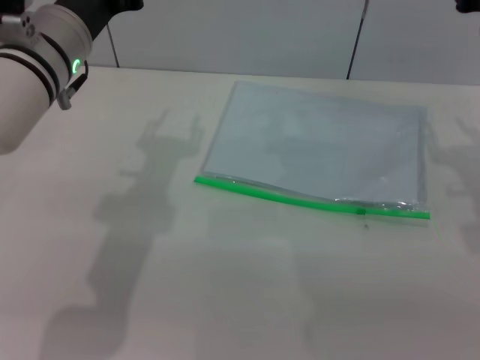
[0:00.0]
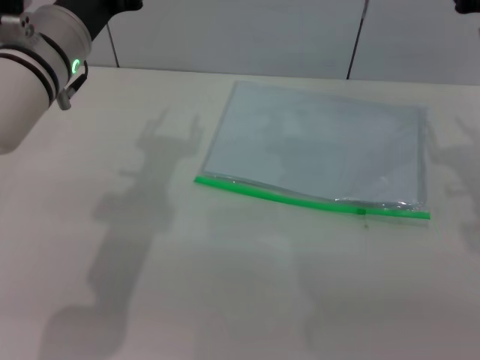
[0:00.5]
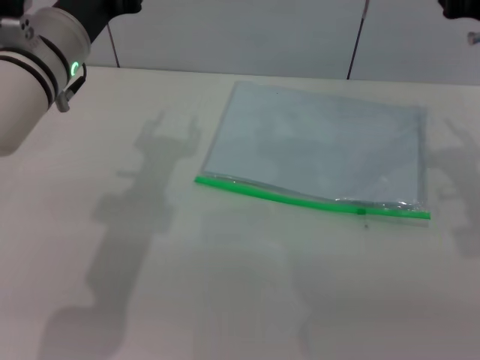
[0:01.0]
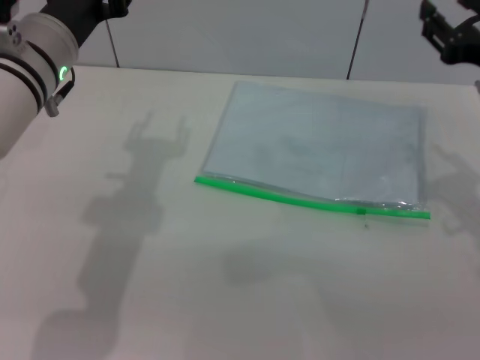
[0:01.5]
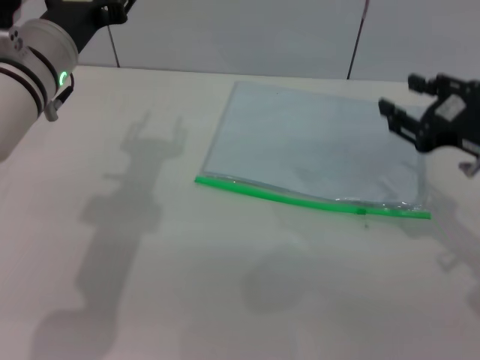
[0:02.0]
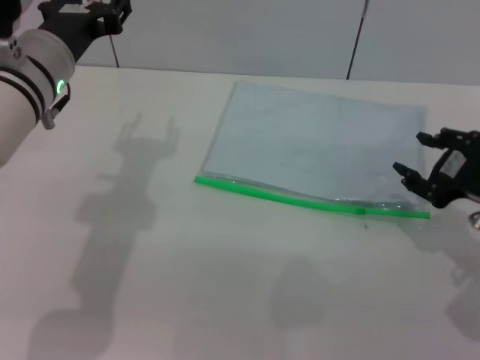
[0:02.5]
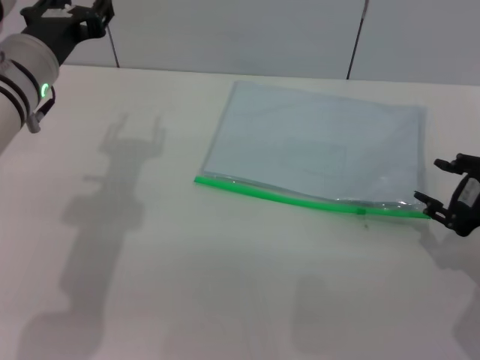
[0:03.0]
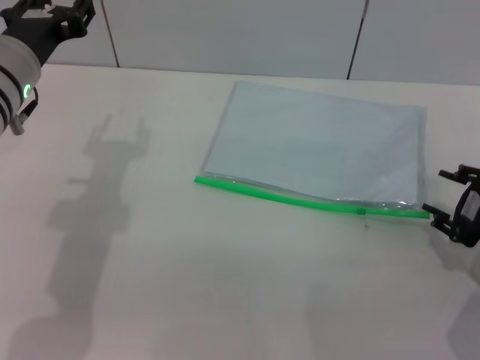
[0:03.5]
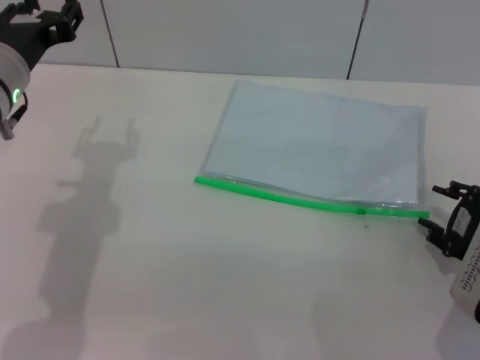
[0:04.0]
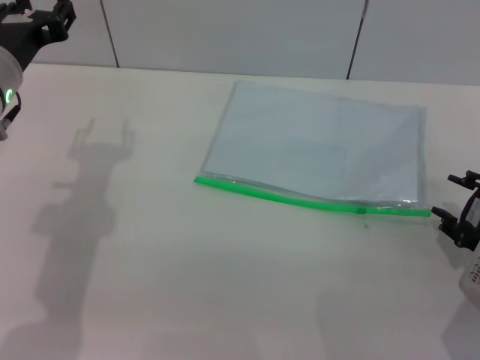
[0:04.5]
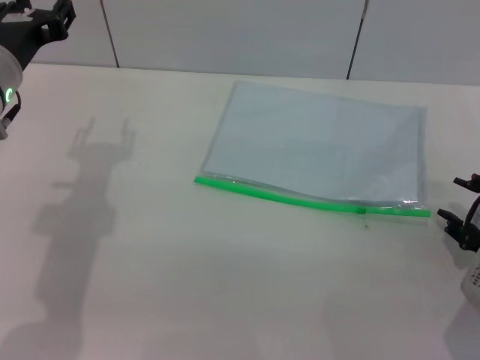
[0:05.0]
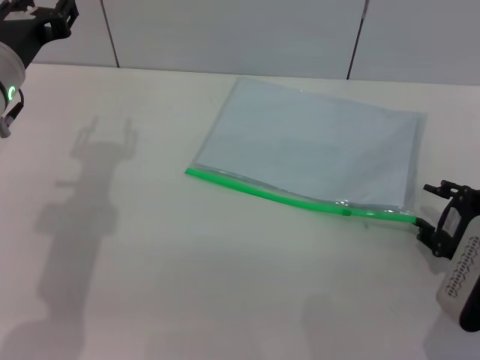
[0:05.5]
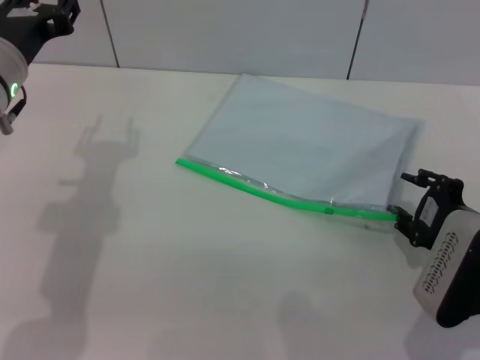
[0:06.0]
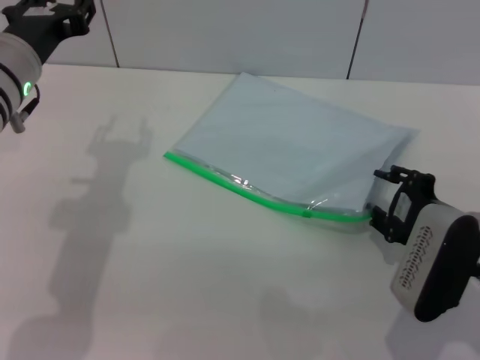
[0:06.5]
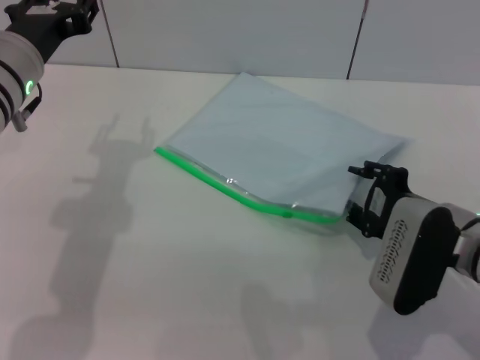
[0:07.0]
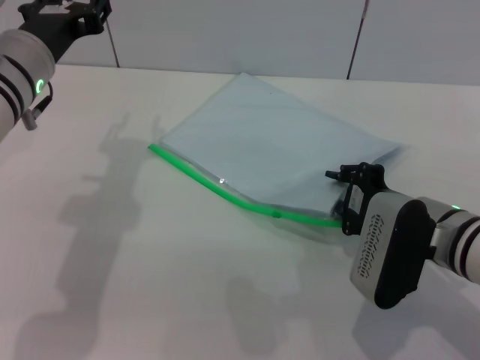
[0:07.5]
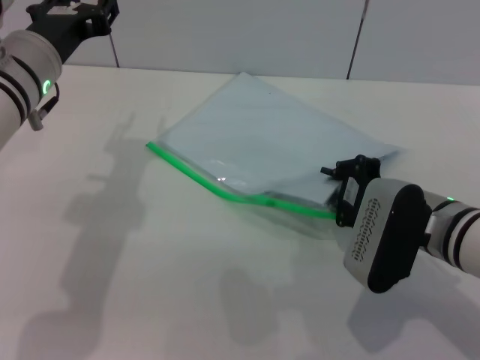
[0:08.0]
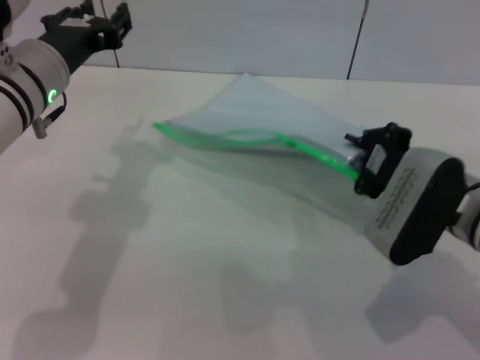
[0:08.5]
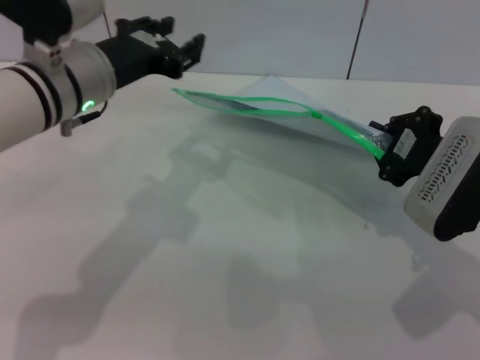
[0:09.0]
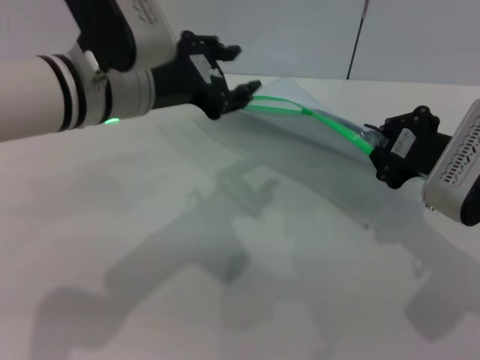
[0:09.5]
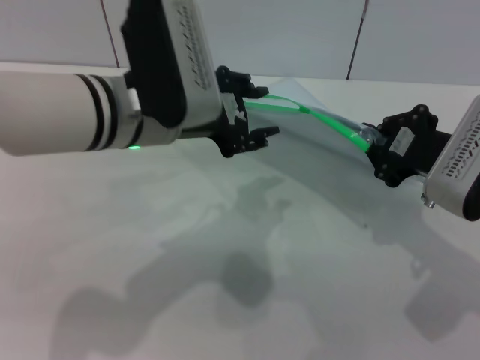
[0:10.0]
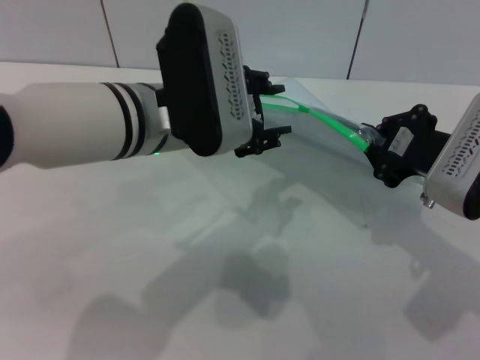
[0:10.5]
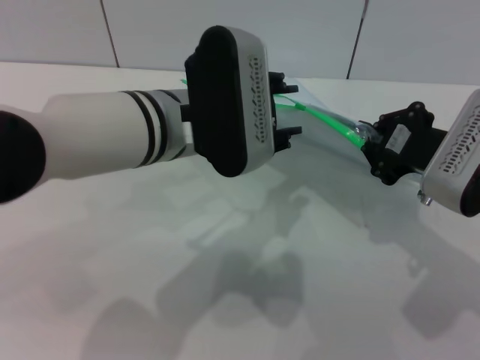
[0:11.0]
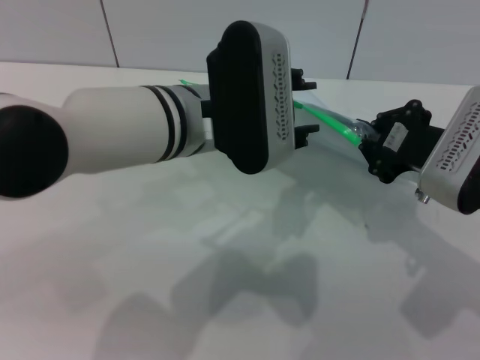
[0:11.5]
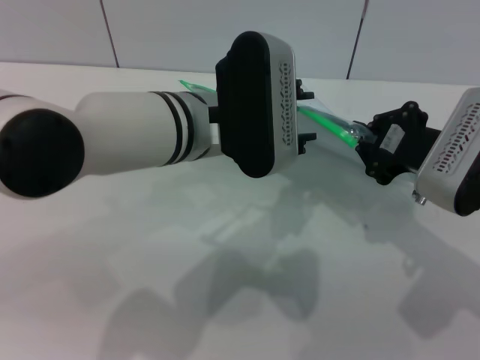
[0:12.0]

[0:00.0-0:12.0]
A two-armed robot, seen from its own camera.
Step, 0:00.0 to 0:09.5: Pick up the transparent plastic bag with the right gripper.
0:00.0 to 0:02.0: The right gripper is displaced backward by roughly 5 cm.
0:02.0 to 0:04.0: The right gripper travels downward by about 10 cm.
0:04.0 to 0:06.0: The grippers make only small movements.
0:06.0 to 0:08.0: The right gripper shifts roughly 5 cm to the left, and closes its fingers.
0:08.0 to 0:10.0: The left gripper shifts about 10 cm to the right, while the right gripper goes about 5 cm upward, and closes its fingers.
0:10.0 to 0:12.0: The left gripper shifts some 5 cm to the right.

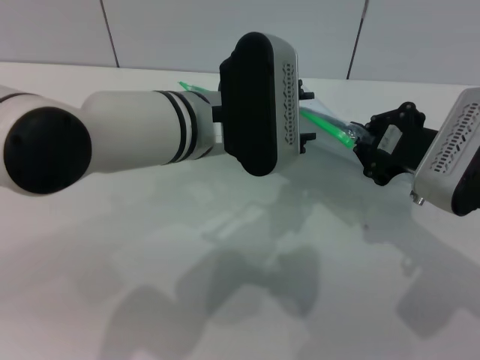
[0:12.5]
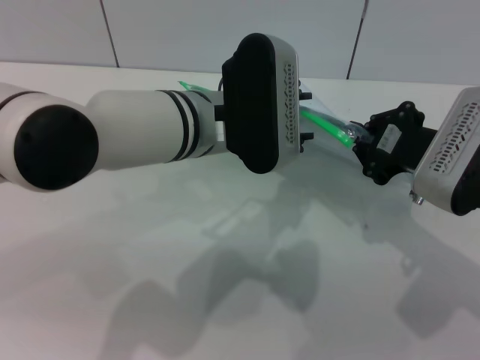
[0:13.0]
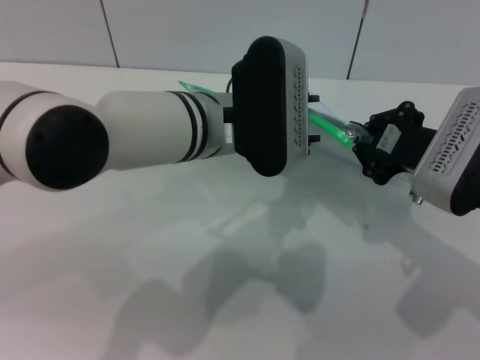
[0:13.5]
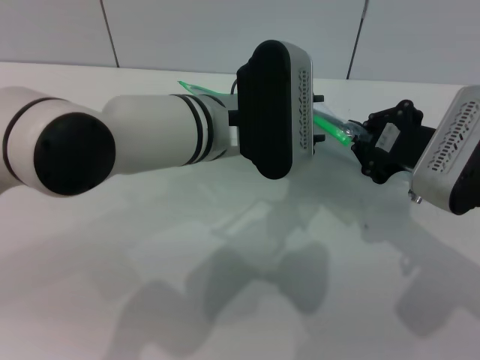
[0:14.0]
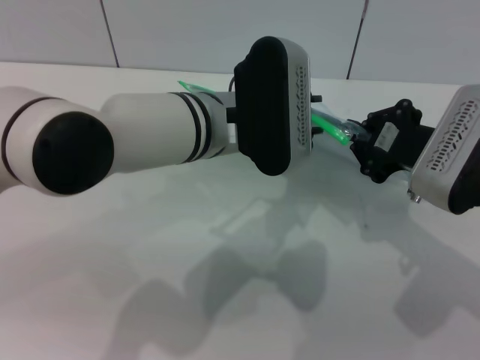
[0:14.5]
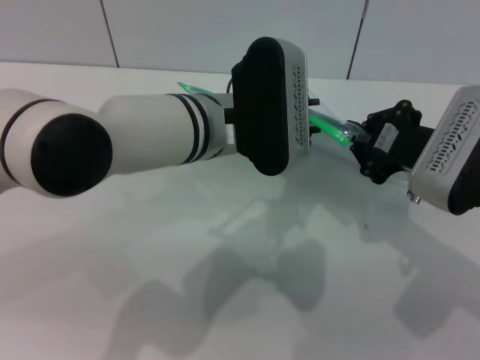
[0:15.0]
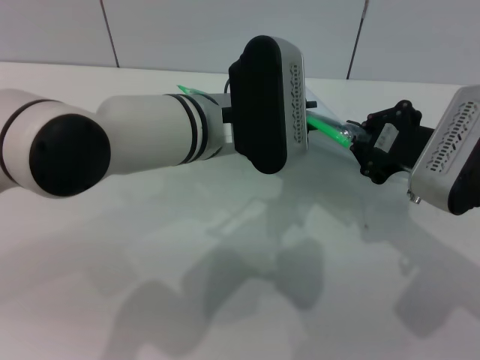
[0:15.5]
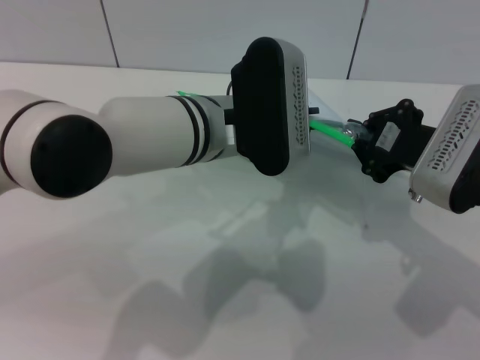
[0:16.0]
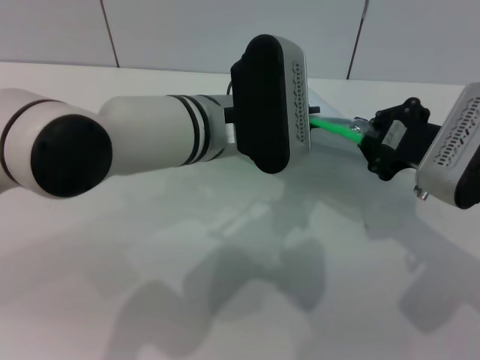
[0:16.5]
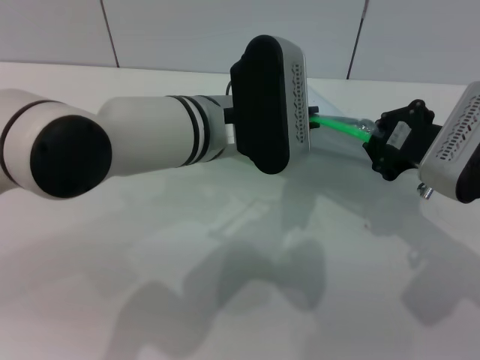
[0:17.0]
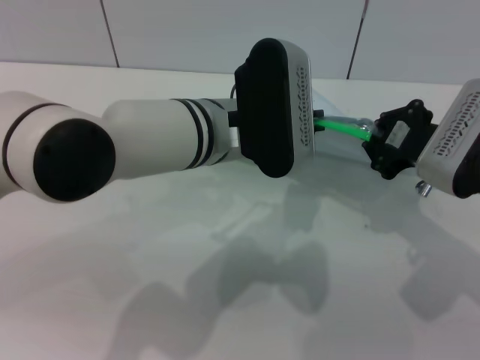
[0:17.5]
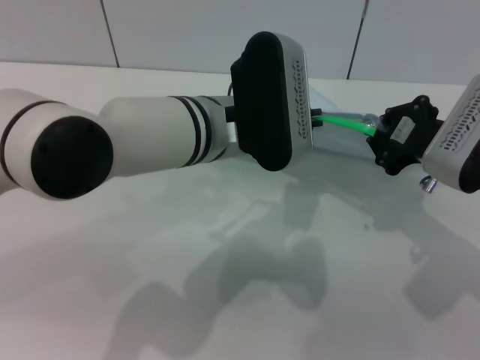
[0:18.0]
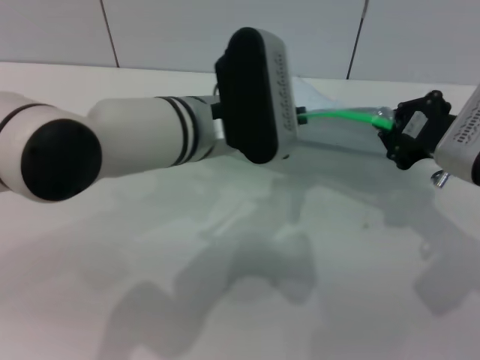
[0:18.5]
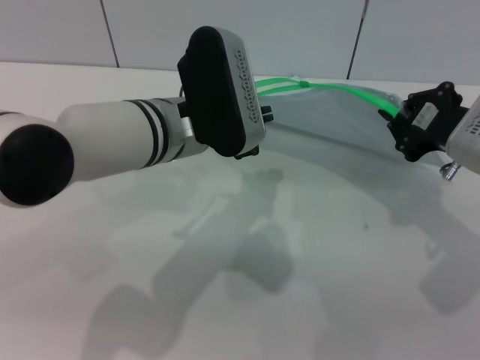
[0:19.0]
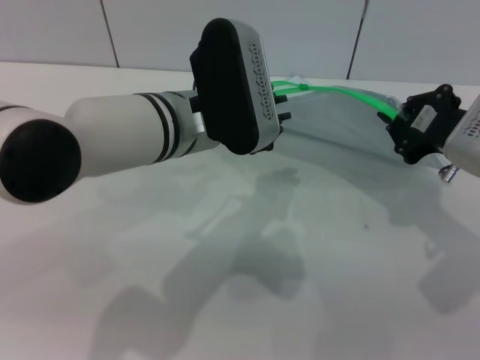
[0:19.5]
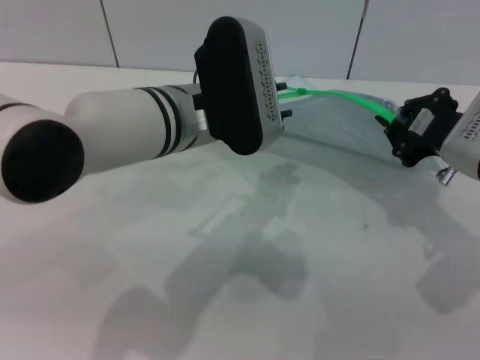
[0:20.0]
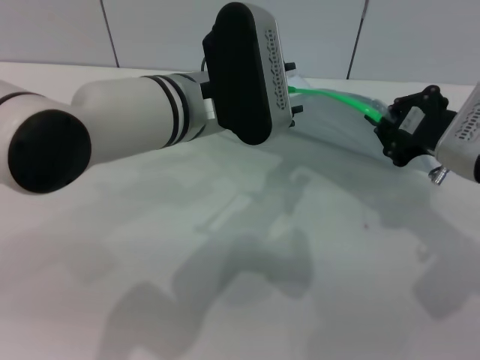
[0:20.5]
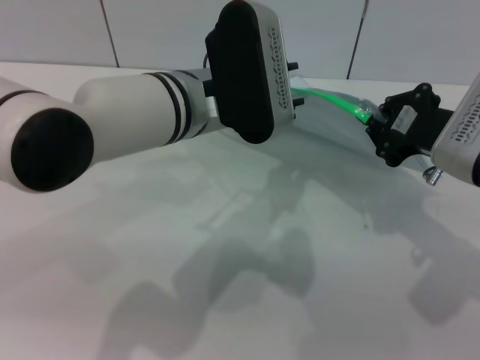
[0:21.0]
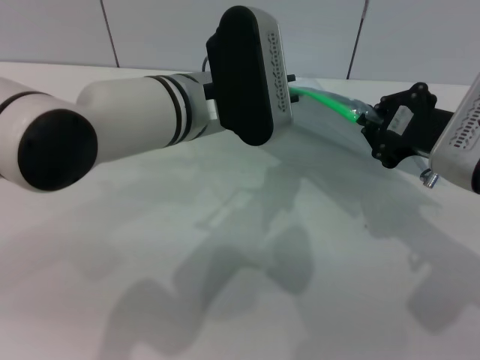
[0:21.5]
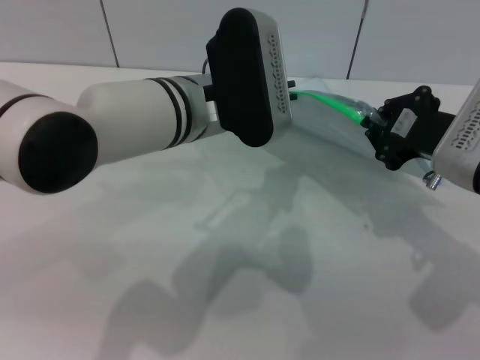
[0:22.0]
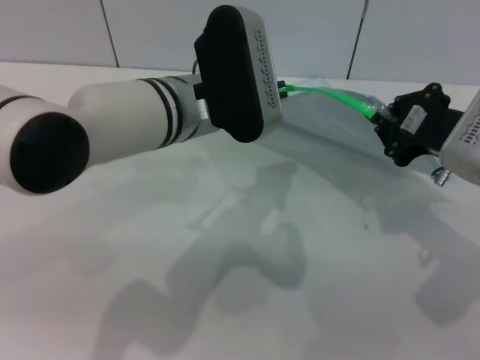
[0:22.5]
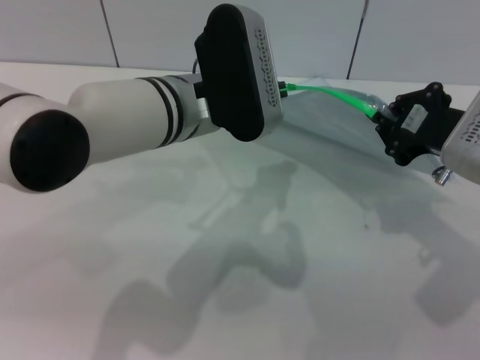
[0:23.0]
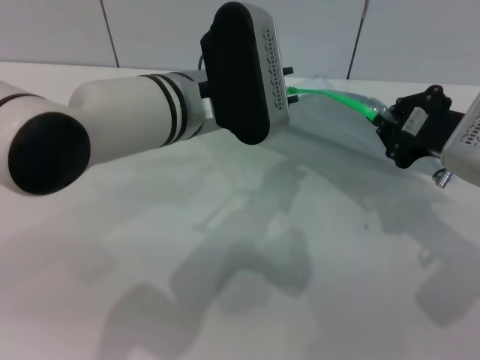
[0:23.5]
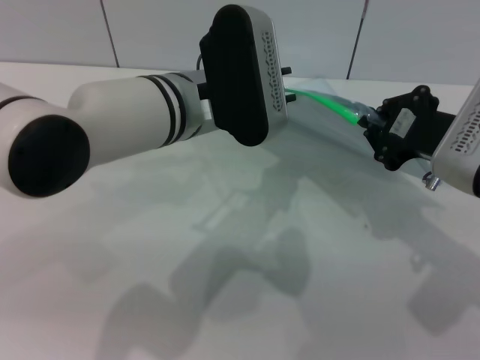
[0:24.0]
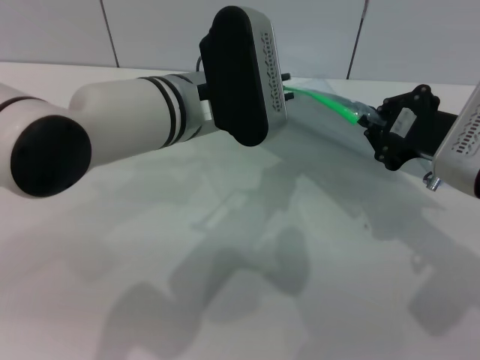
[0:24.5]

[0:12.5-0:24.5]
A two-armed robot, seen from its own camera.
0:12.5 to 0:14.5: There are only small adjustments of the grippers.
0:14.5 to 0:16.5: The left gripper closes its fingers.
0:16.5 to 0:18.5: The grippers stay close to where they were, moving slightly.
0:18.5 to 0:20.5: The left gripper opens.
0:20.5 to 0:22.5: The left gripper closes up.
0:22.5 to 0:24.5: The left gripper opens.

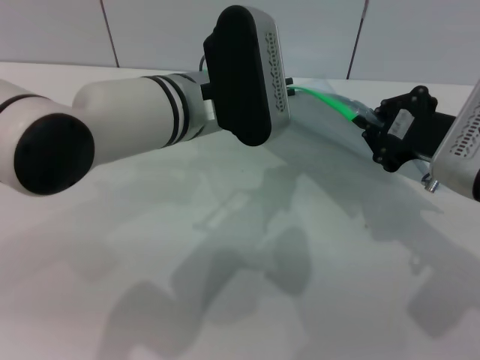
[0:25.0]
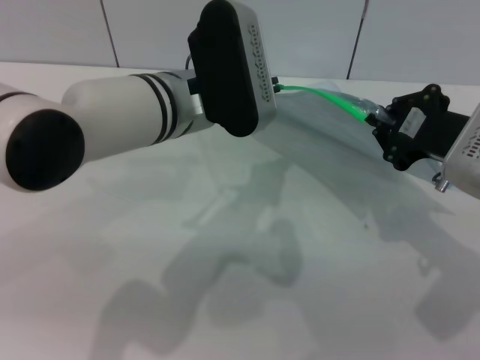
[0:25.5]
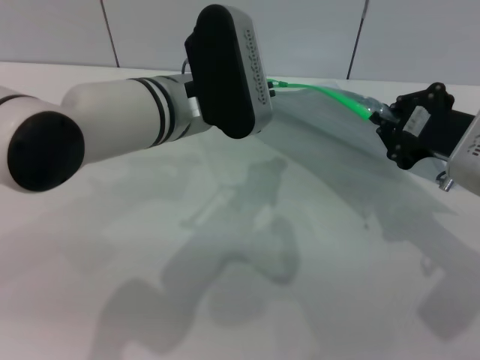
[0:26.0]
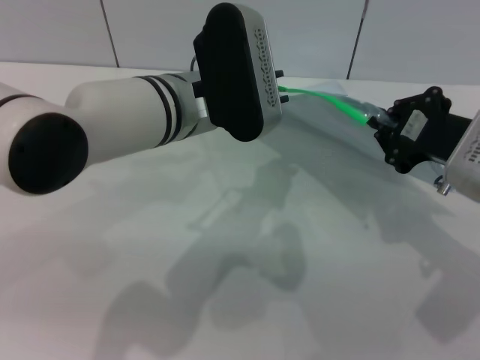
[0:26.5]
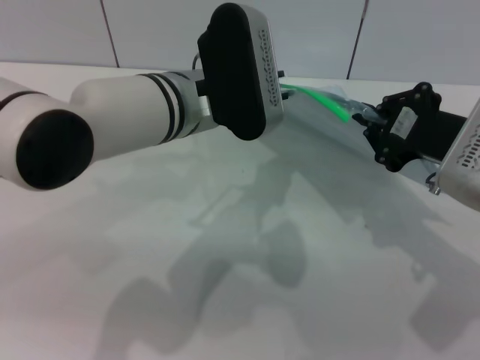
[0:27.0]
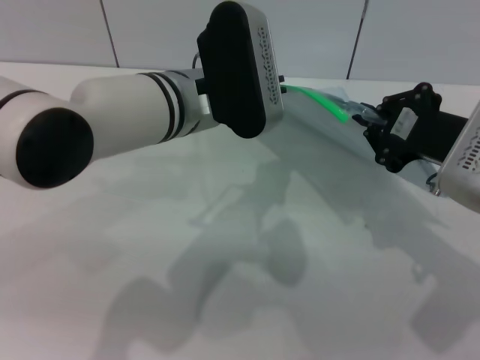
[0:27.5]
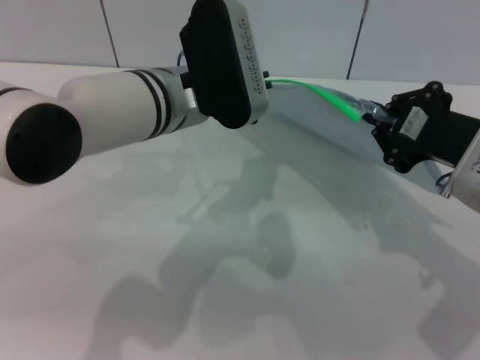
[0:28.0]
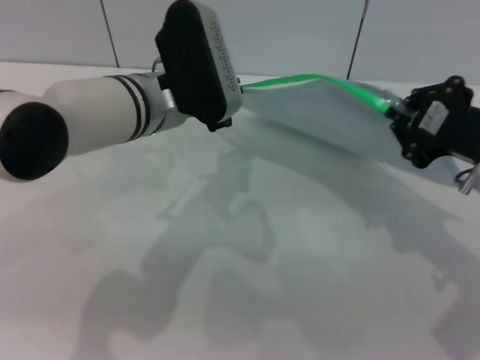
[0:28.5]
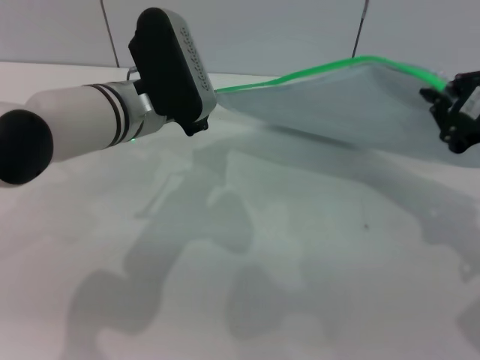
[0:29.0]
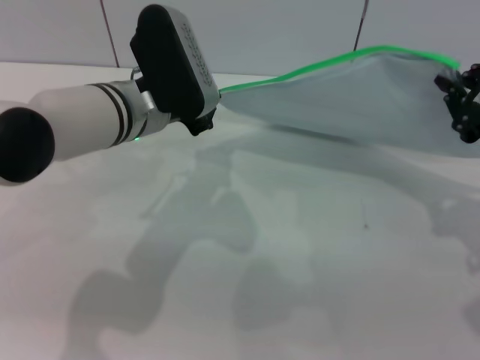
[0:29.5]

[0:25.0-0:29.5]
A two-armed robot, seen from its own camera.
0:25.0 to 0:27.0: The grippers make only small movements.
0:27.0 to 0:29.5: The right gripper travels to the right by approximately 5 cm; the left gripper shifts about 5 cm to the left.
